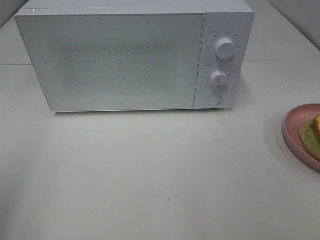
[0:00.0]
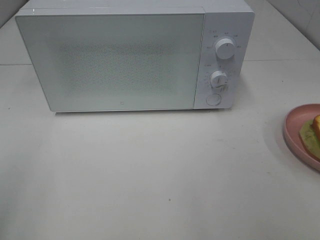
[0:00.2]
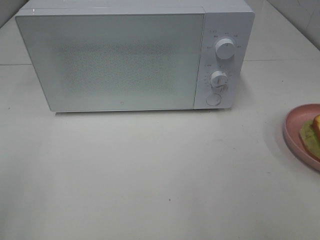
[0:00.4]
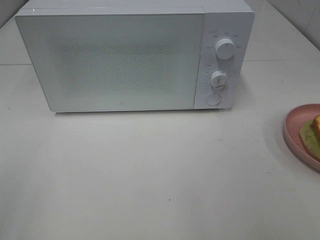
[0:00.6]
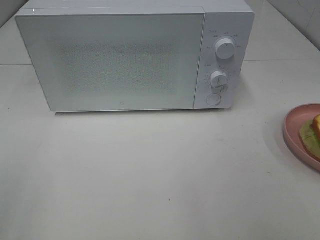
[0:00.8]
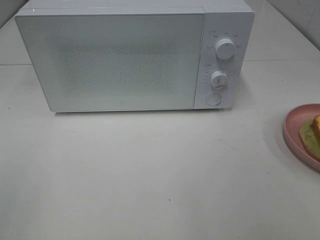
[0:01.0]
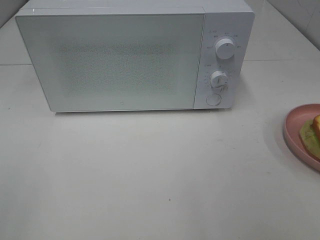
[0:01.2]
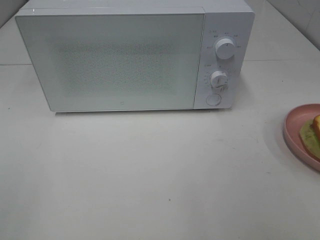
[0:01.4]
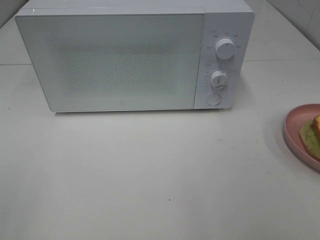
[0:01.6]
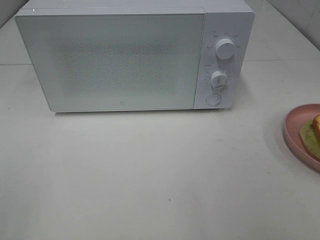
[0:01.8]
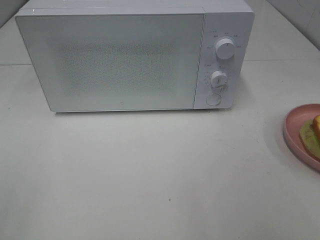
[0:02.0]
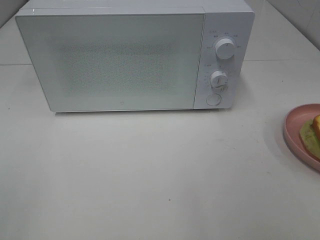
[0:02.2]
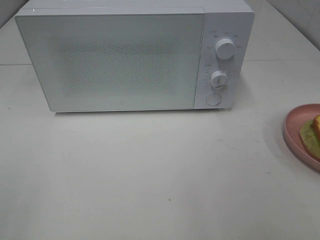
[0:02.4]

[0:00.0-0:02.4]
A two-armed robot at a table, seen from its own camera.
Task of the whole recording: Heat Sandwich.
0:01.2 to 0:02.4: Neither gripper changes place.
